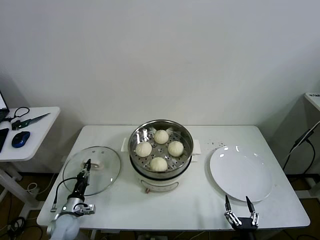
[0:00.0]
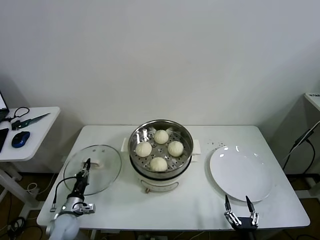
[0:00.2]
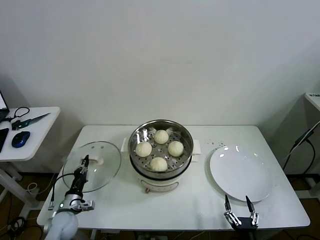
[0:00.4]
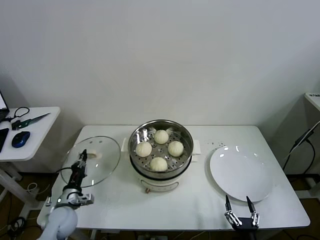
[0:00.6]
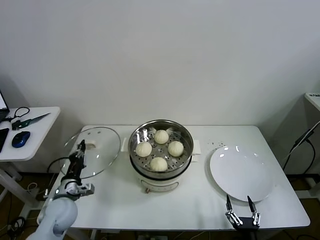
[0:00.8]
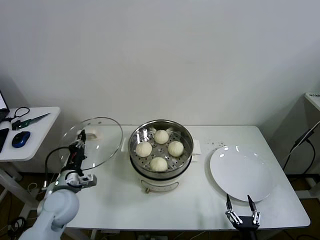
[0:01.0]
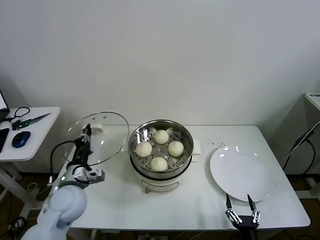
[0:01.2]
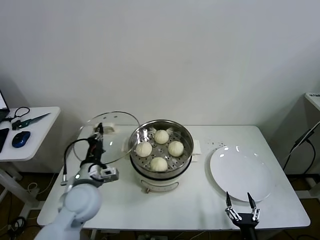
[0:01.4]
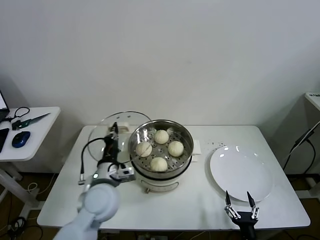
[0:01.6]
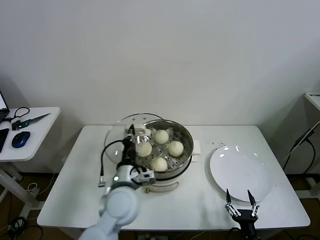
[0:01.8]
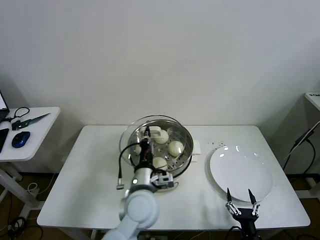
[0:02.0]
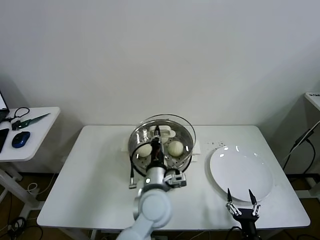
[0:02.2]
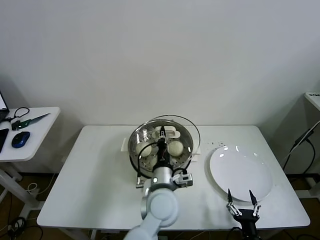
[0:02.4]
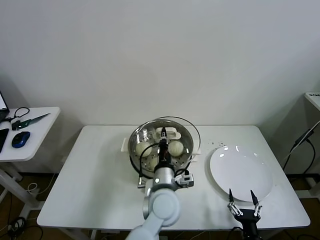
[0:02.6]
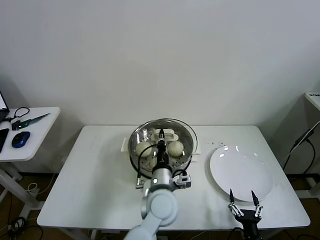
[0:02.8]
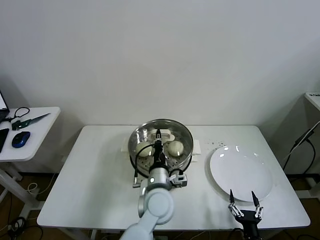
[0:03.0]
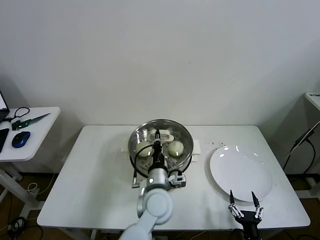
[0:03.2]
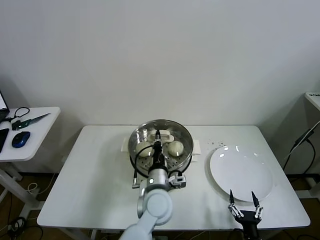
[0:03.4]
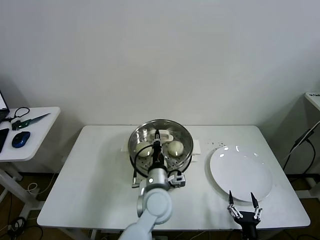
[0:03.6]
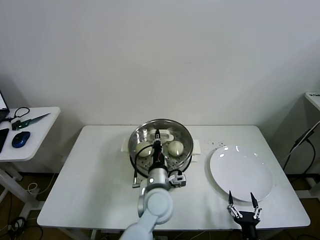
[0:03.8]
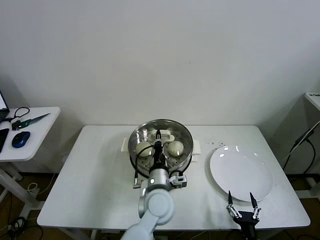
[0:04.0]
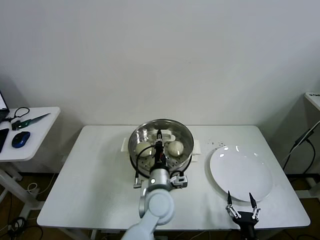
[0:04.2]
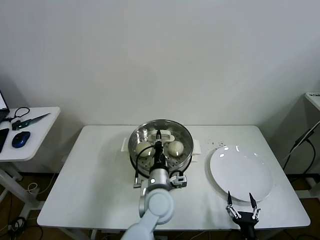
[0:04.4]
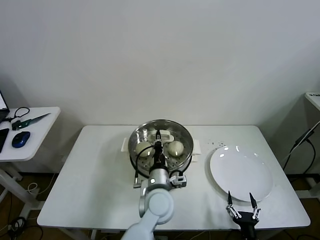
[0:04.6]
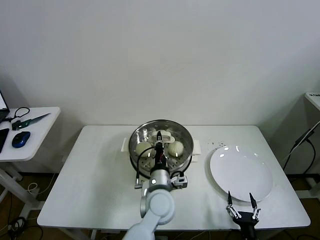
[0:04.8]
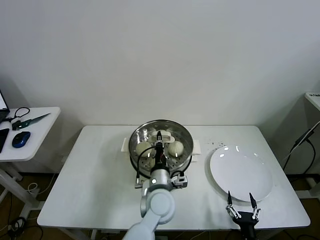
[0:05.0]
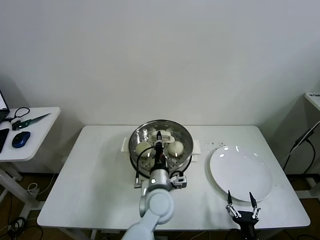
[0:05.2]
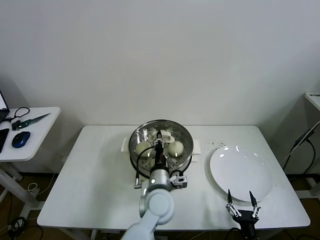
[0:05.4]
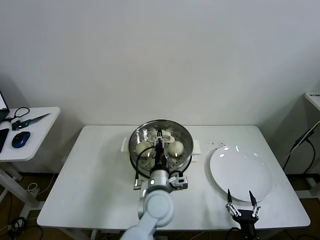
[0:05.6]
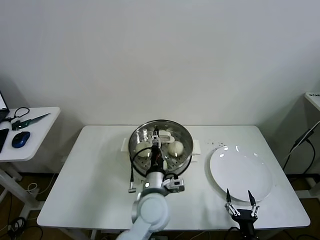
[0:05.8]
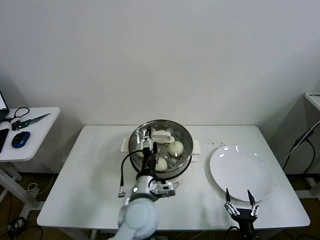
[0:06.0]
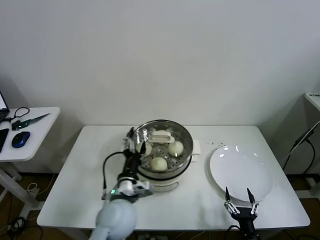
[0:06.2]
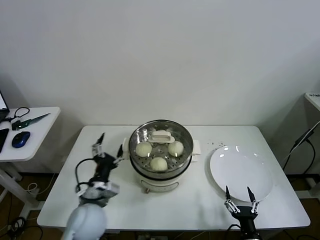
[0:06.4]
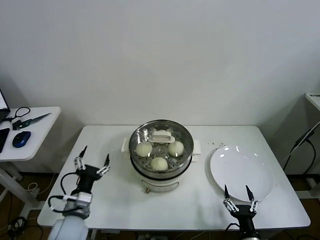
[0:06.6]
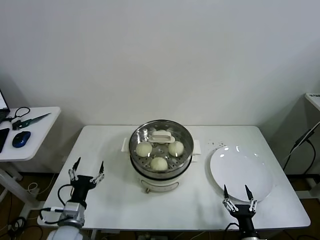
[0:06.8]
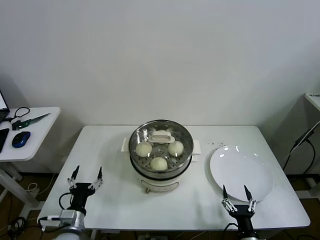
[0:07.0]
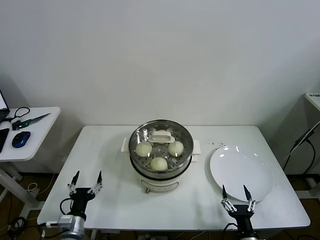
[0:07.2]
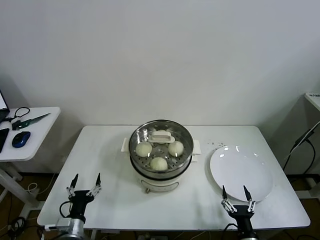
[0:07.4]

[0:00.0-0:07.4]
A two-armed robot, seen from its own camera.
Task of the whole recording: take steamed baozi put them in steamer then cover it.
Step, 0:00.2 to 0:05.8: Place the pot lid on the steamer with left gripper.
0:00.0 to 0:01.4: The left gripper moves upward and to the right, roughly 25 cm.
0:01.4 to 0:03.0: The left gripper goes roughly 25 cm to the right.
0:03.0 to 0:04.4: The grippers make only small movements.
0:04.4 to 0:06.0: The left gripper shifts by approximately 5 cm, and opens its fingers.
0:06.0 to 0:07.4: The left gripper goes roughly 30 cm to the left and downward.
